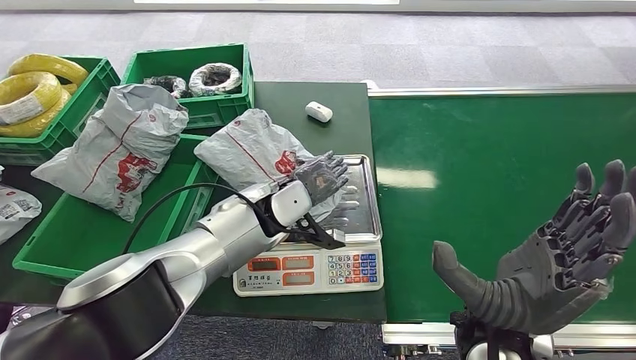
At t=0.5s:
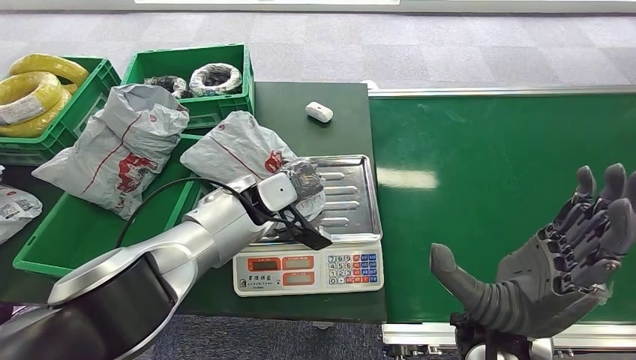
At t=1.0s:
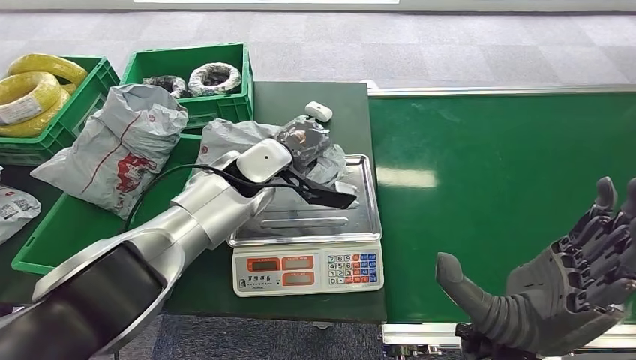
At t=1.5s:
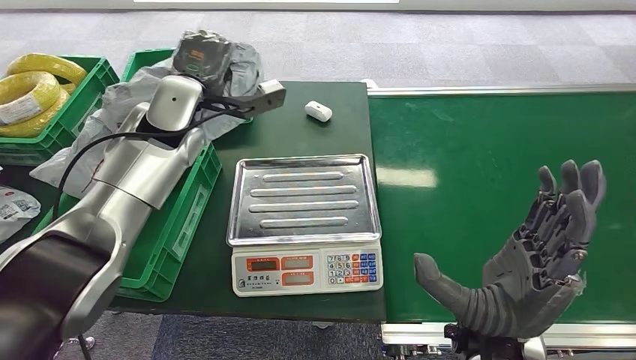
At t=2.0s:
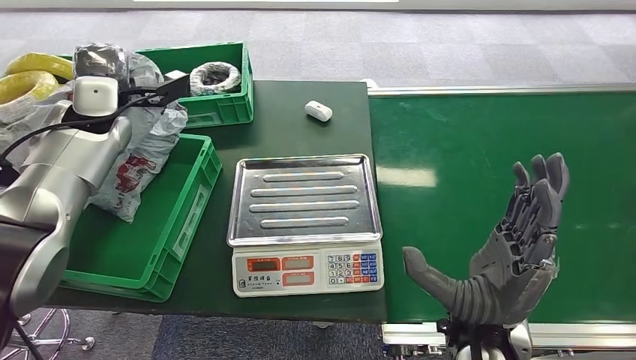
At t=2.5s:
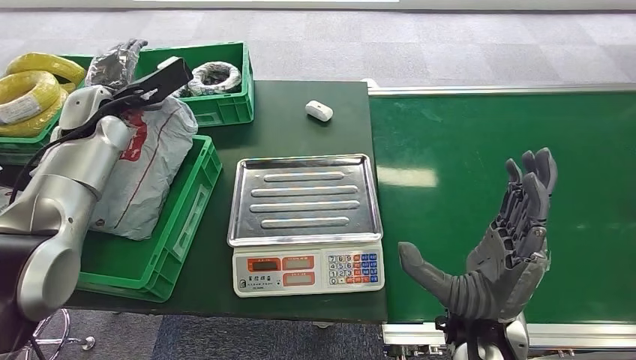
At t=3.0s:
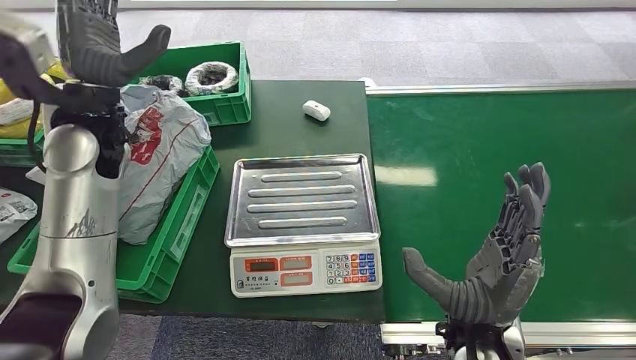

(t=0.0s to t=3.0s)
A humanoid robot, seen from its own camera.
Step, t=2.0s - t=3.0s: Place the package into the parcel locker.

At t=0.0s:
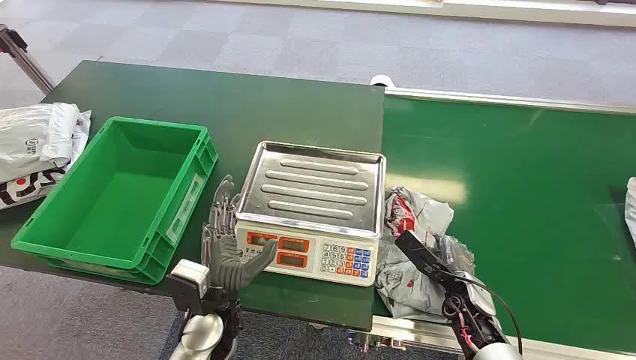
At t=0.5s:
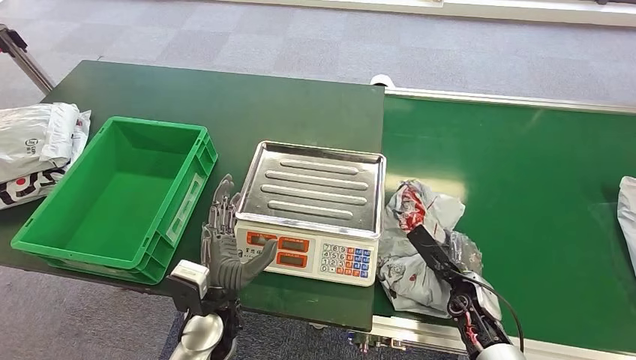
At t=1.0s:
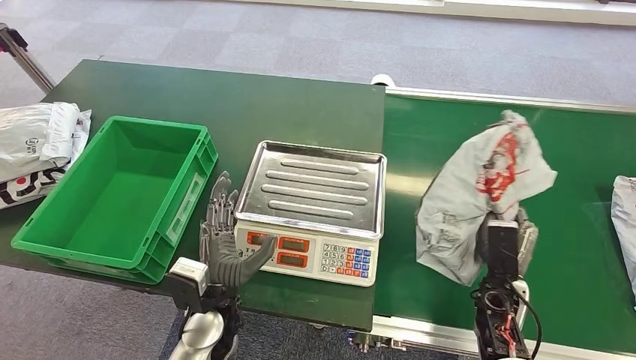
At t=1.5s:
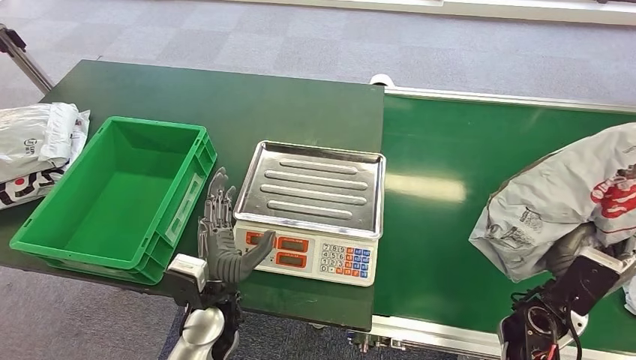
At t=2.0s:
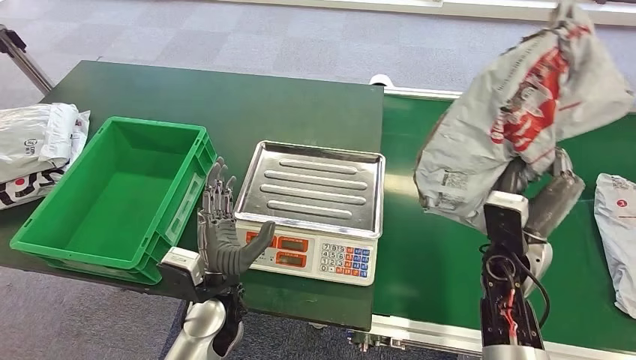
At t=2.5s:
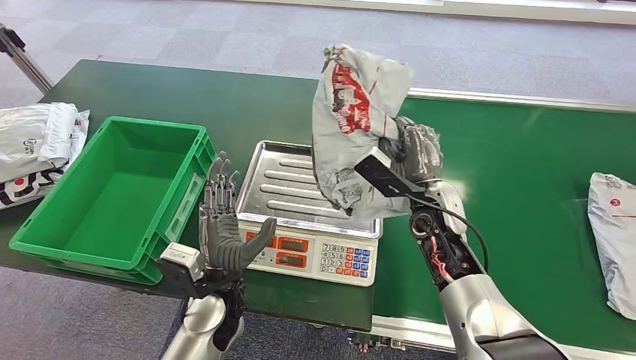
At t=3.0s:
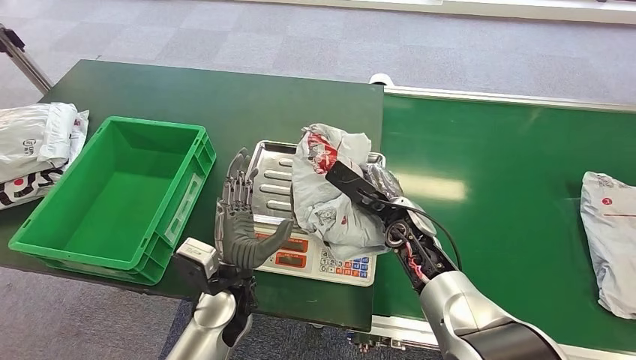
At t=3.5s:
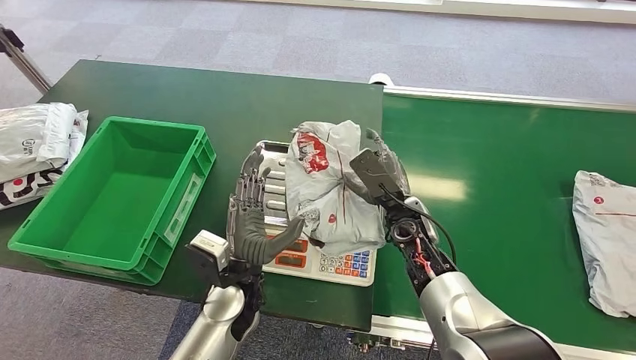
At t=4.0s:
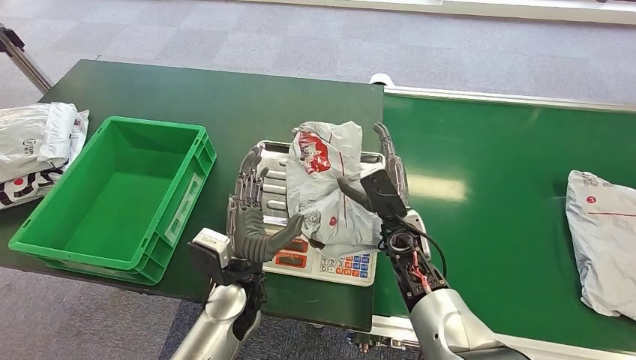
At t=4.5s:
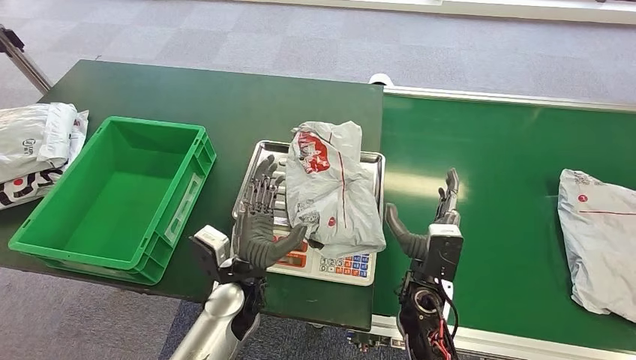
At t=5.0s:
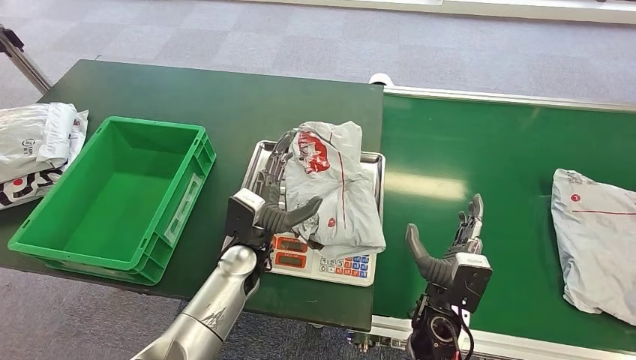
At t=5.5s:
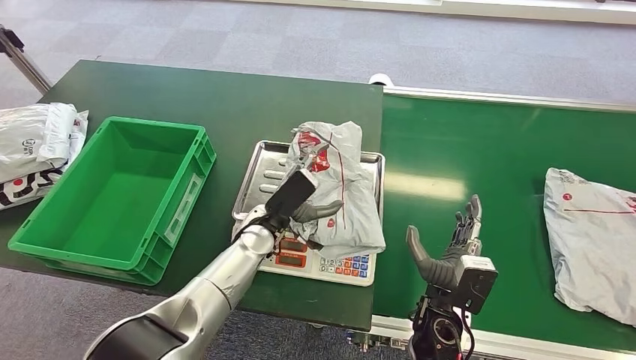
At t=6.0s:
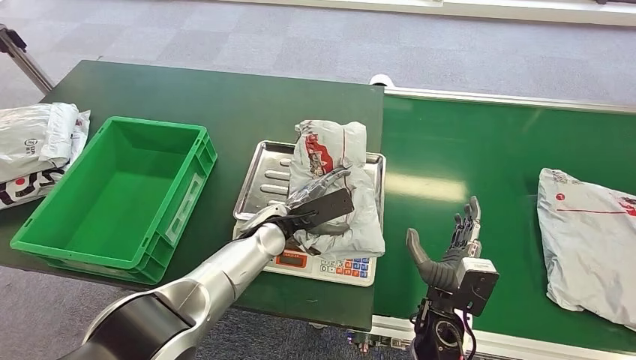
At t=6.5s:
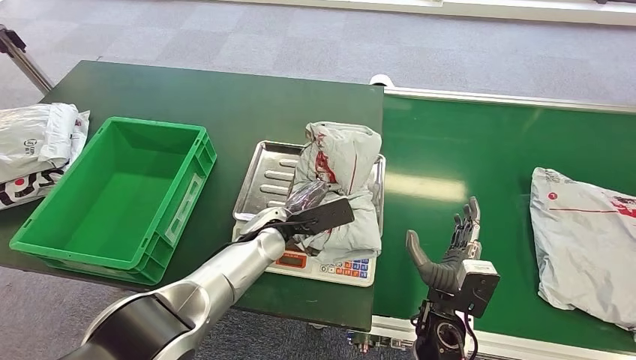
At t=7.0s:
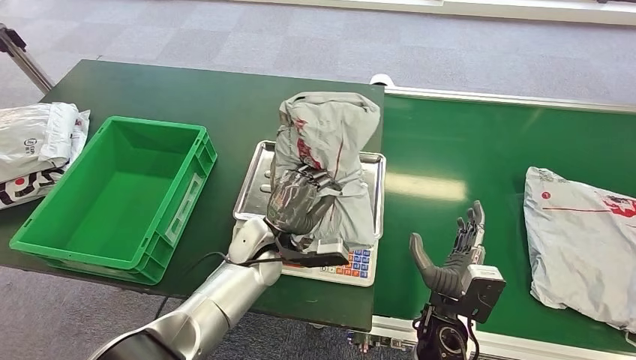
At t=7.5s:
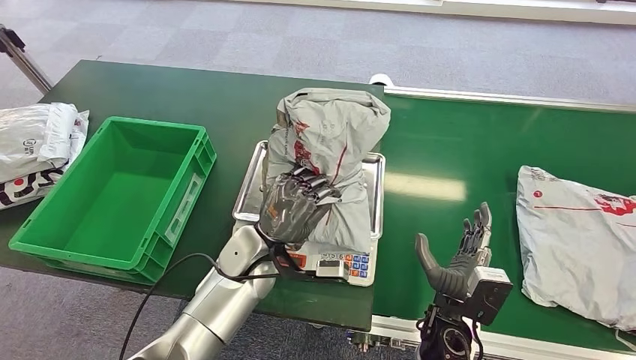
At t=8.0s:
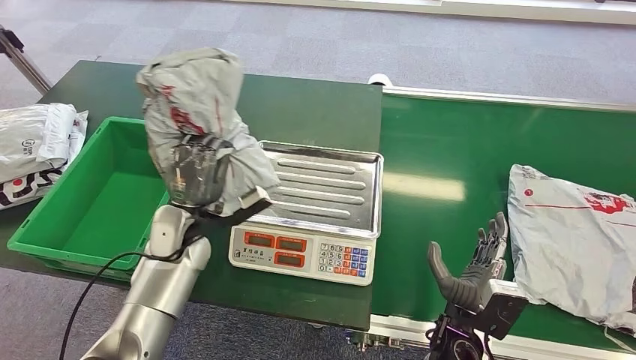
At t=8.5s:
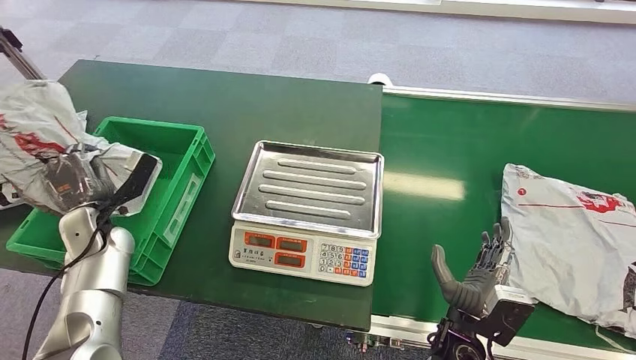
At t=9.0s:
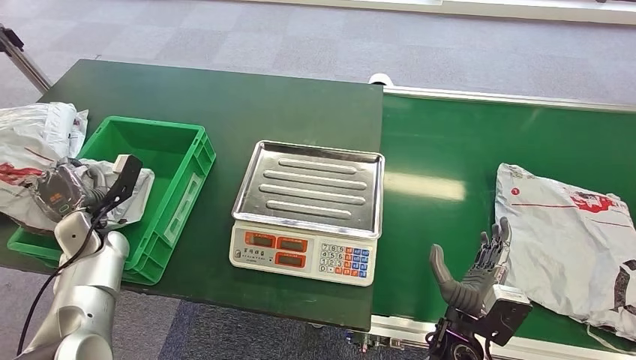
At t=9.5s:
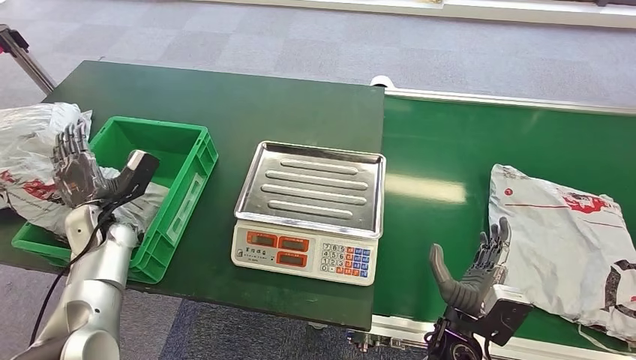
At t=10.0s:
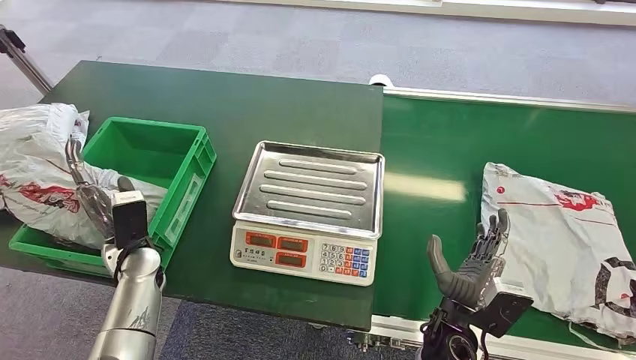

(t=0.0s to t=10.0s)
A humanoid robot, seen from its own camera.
Step, t=0.0s - t=1.0s: Pick up the package from the conveyor belt.
Step, t=2.0s - t=4.5s: Place the package onto the inbound machine.
Step, t=5.0s - t=8.5s: Pick up the package from the inbound machine.
Step, t=9.0s - t=9.5s: Place the package into the parcel locker.
